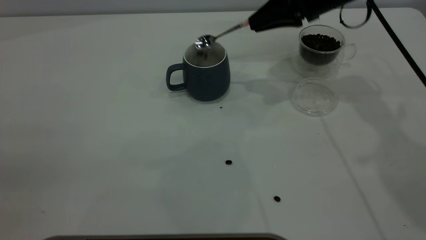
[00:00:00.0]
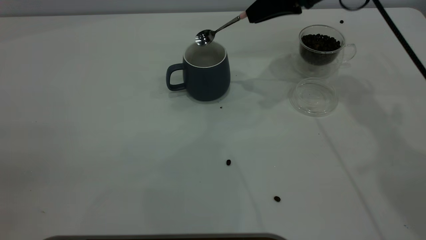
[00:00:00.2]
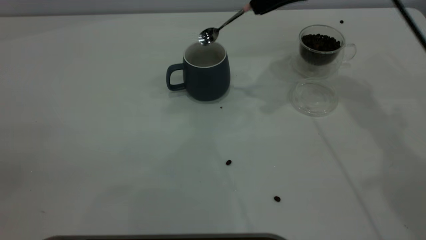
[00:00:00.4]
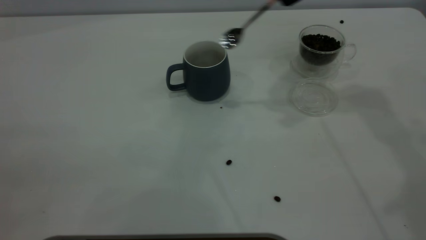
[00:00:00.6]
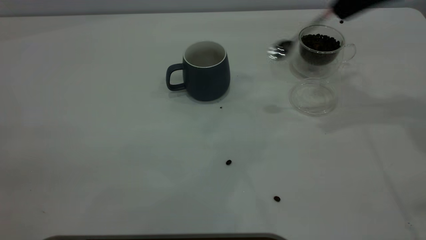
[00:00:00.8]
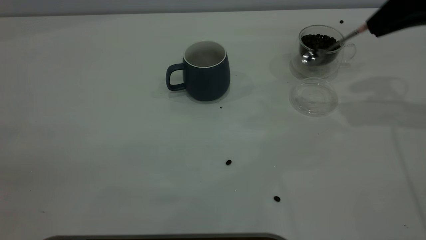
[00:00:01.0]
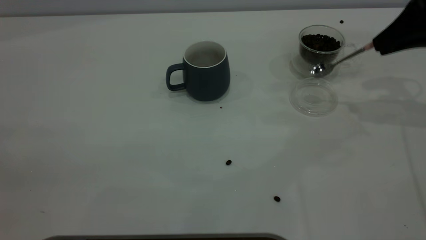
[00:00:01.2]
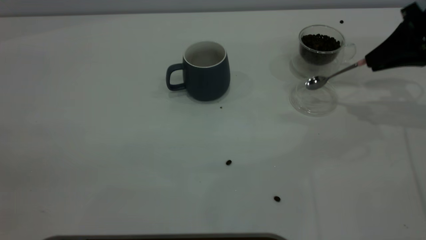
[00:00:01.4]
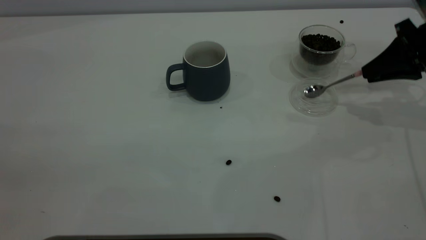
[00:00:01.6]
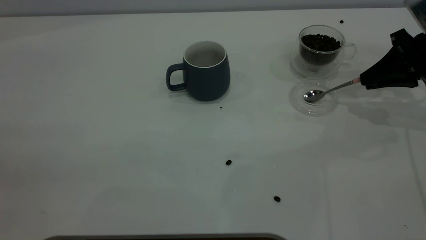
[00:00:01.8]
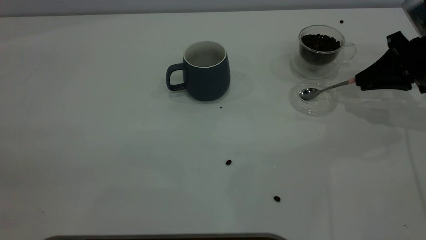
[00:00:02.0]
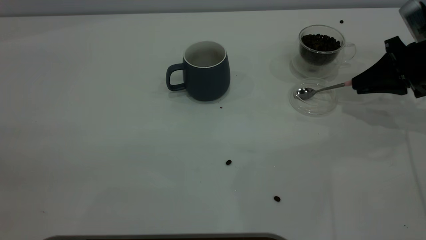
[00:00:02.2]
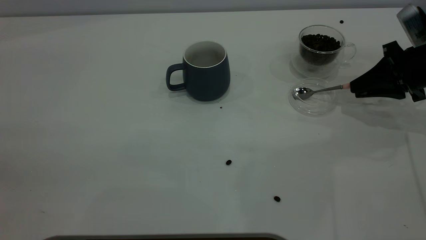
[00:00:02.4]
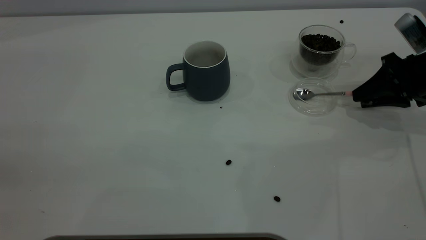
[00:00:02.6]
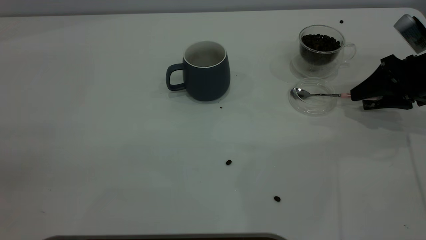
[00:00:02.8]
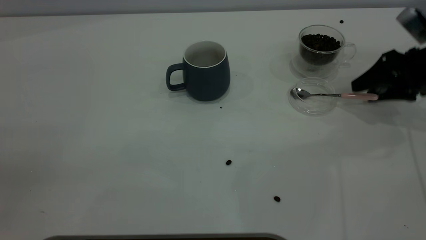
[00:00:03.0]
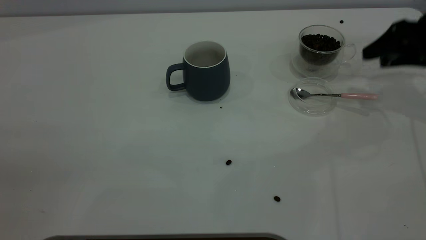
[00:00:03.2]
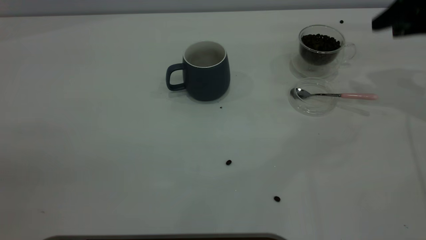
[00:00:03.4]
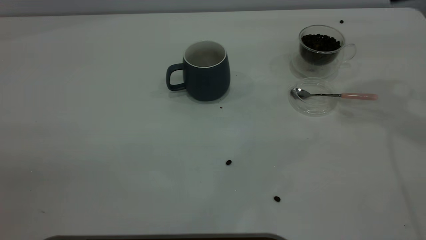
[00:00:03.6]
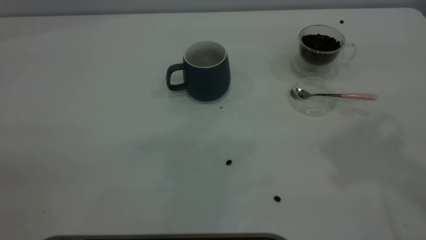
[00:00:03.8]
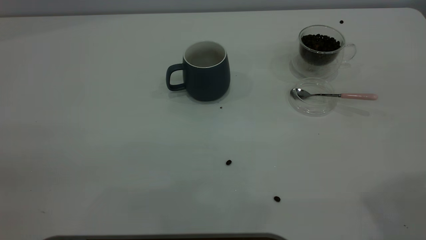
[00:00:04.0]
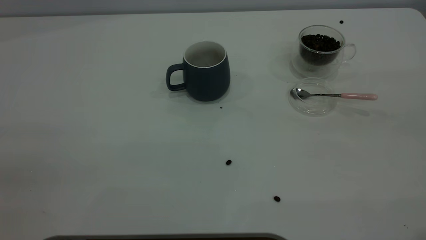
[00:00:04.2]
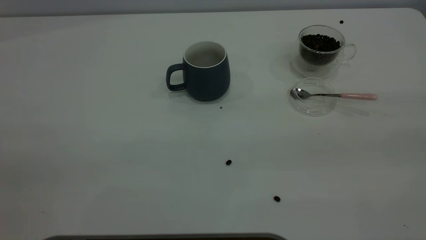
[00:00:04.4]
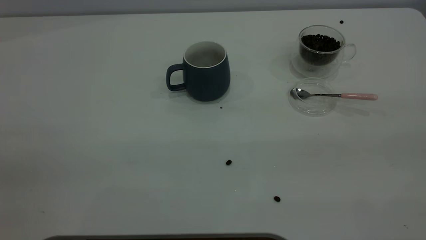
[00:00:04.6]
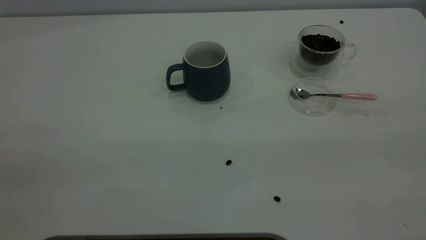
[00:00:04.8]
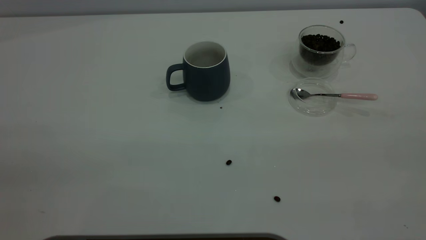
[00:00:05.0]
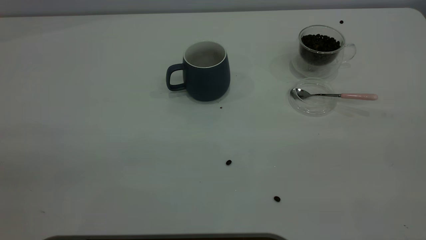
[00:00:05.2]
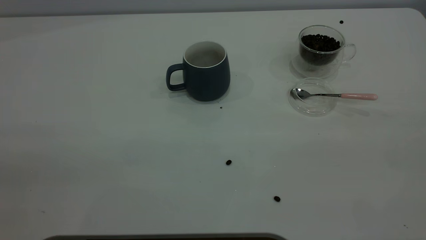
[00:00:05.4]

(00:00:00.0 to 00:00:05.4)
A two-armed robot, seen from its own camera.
Task of the whole recording: the left gripper place the grey cup in the center of the table, the right gripper take the pink spoon from the cup lid and scoop out the coffee beans from the coffee cup and put them into the grey cup, the right gripper put the spoon back into the cup lid.
Step, 00:00:00.4 - 00:00:03.0: Place the spoon back in its original place.
00:00:00.0 - 00:00:01.4: The right gripper shifts roughly 20 cm to the right and backward.
00:00:01.4 - 00:00:02.8: The right gripper is displaced downward by approximately 5 cm, and opens.
00:00:02.8 - 00:00:04.0: The right gripper heads upward and backward, covering roughly 40 cm.
